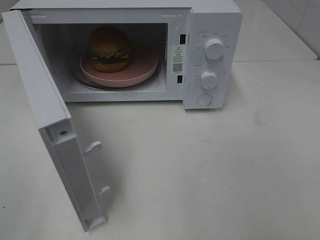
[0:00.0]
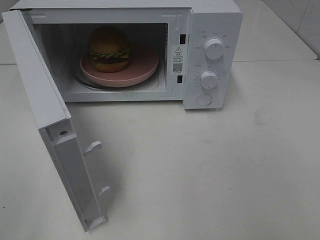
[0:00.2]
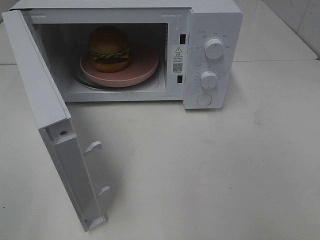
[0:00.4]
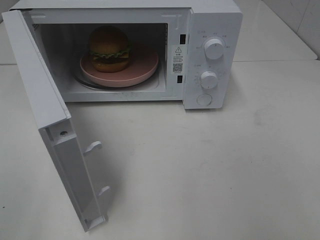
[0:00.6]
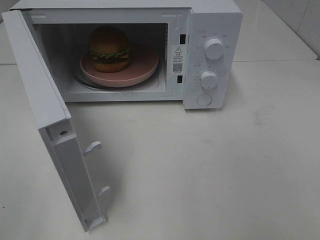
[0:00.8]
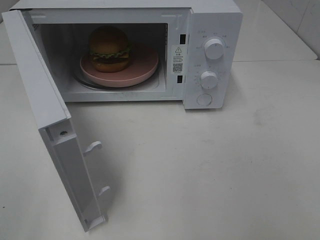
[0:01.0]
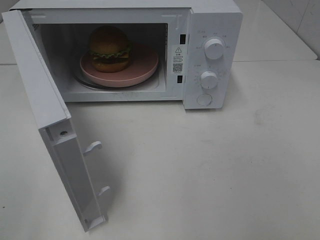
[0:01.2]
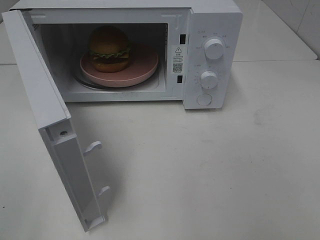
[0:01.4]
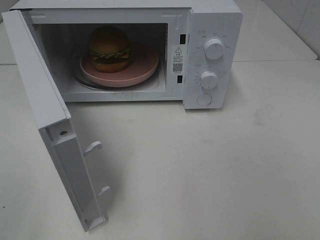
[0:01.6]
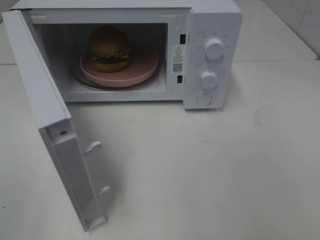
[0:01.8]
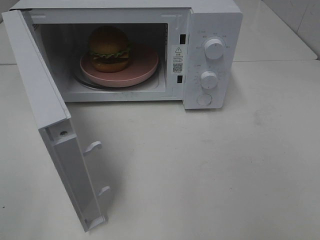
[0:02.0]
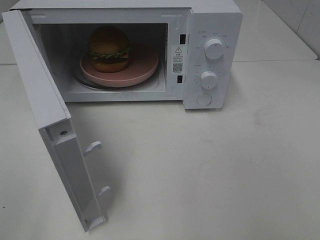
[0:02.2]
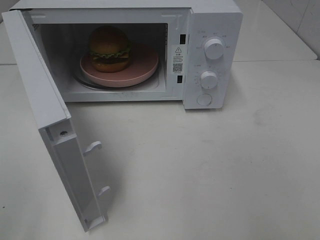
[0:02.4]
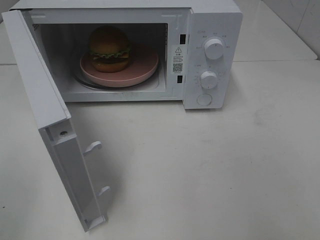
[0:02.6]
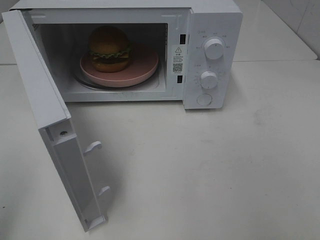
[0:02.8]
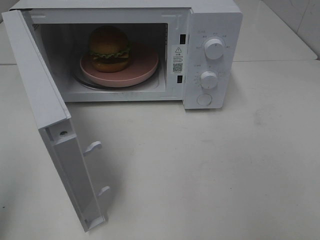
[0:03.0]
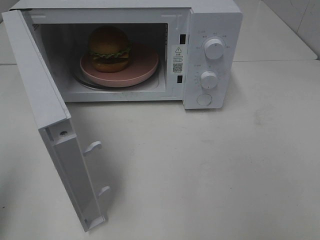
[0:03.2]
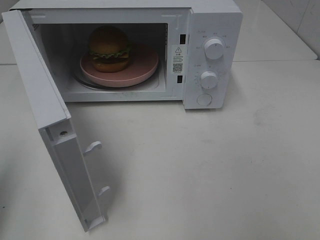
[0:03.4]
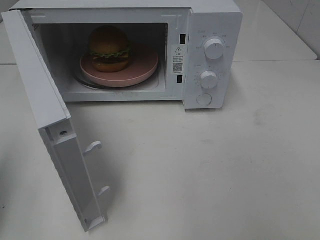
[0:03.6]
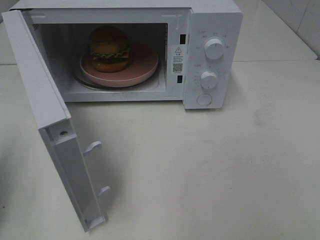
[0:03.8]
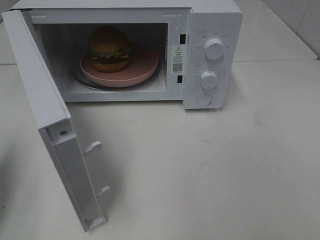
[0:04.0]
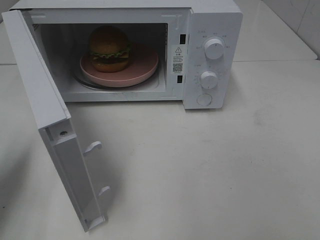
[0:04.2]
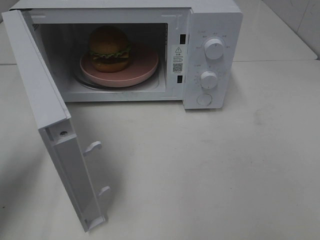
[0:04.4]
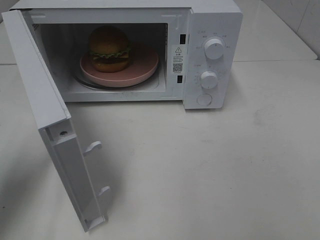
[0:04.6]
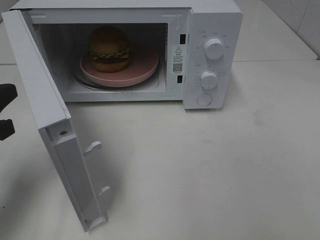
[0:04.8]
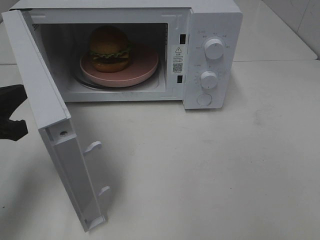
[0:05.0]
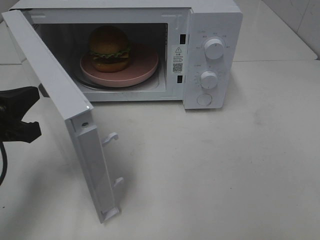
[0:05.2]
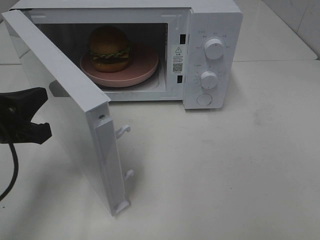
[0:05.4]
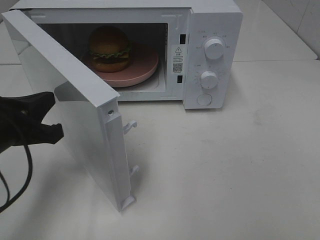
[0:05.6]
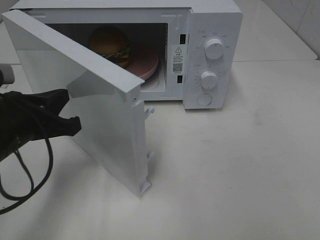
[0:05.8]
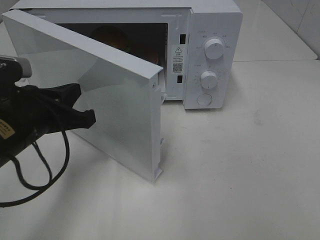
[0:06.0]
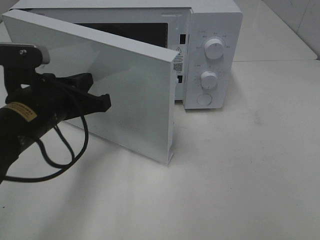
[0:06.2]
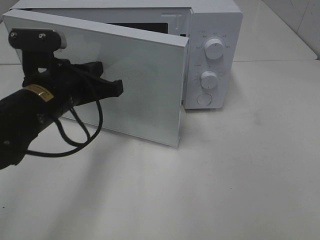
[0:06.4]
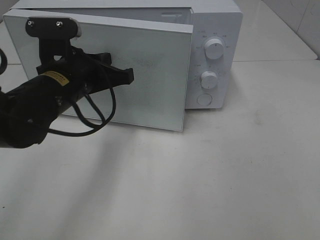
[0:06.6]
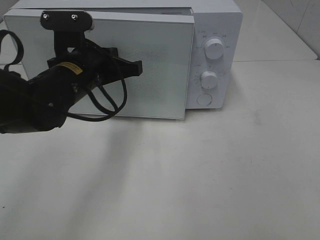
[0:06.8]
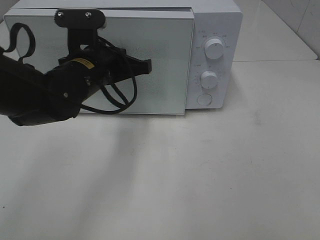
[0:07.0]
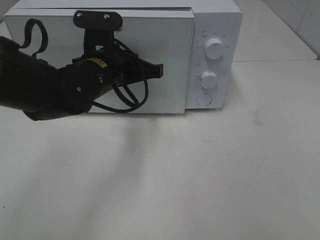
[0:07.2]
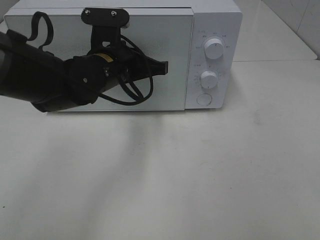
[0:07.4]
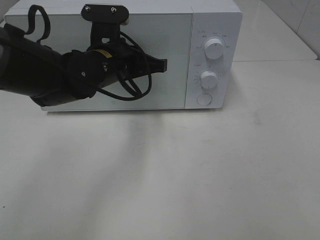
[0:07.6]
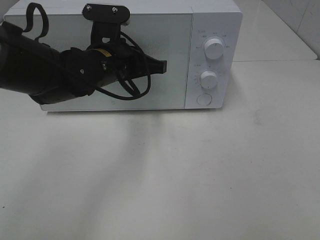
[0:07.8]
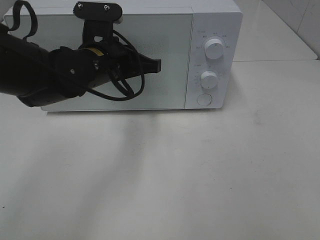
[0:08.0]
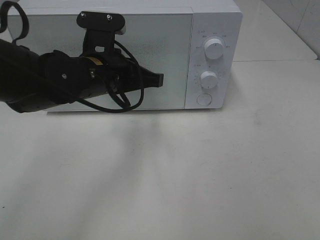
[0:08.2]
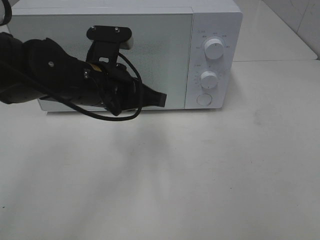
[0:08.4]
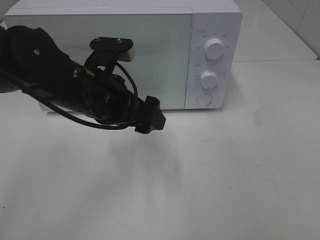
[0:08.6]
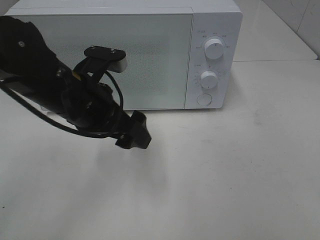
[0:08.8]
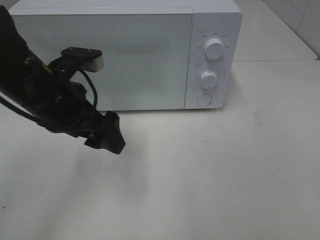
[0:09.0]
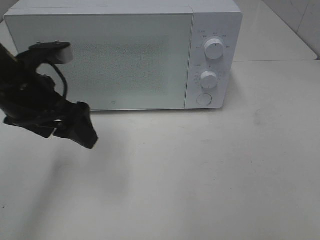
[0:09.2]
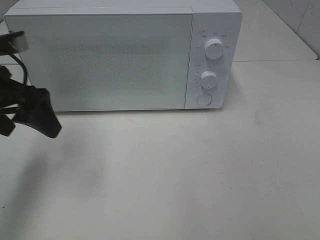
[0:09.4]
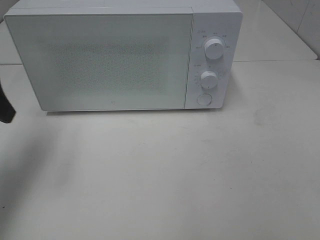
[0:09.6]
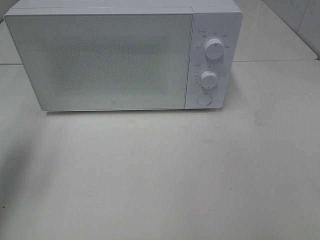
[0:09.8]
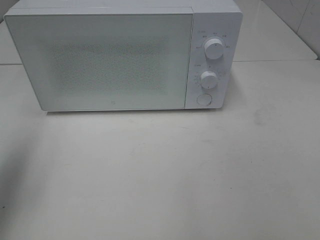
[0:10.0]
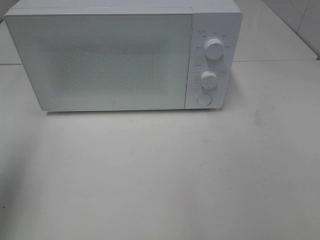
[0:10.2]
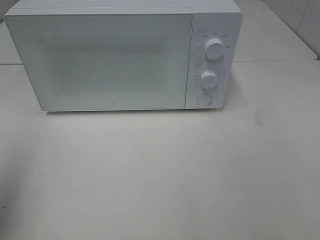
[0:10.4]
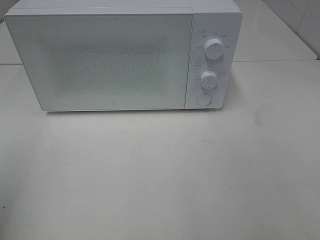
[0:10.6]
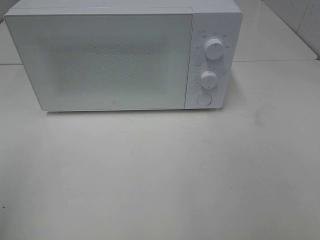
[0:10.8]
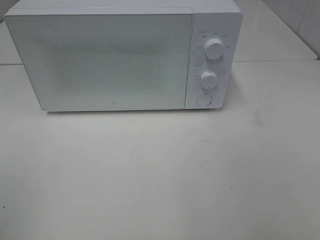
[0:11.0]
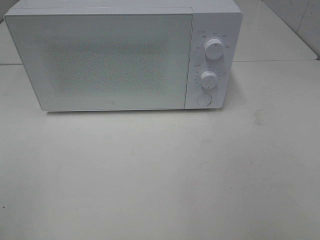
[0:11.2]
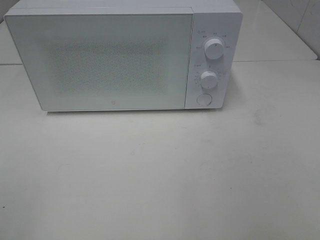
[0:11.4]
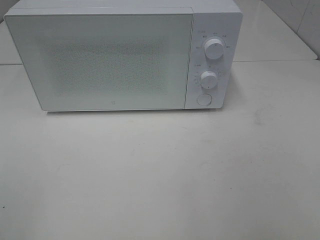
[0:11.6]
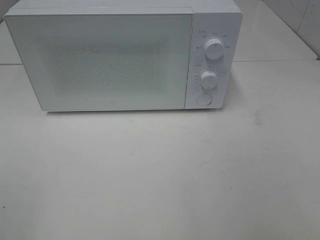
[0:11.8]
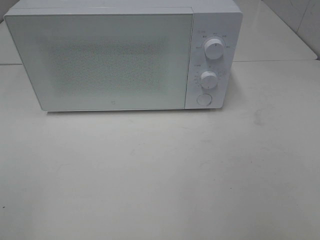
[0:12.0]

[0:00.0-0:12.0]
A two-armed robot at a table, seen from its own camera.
Task of the whole recording: Heat the burger.
Step, 0:00.0 to 0:08.4: Left hand: close the microwave door.
0:00.0 to 0:01.6: The two grippers keep their place.
0:03.0 to 0:04.4: The left gripper moves forward and downward, approximately 15 cm.
0:04.4 to 0:06.0: The left gripper moves to the right, approximately 10 cm.
0:06.0 to 0:07.6: The left gripper shifts about 15 cm forward and to the right.
0:07.6 to 0:09.0: The left gripper shifts roughly 10 cm backward and to the left, and opens.
0:09.0 to 0:10.4: The left gripper goes about 25 cm to the left, backward and upward.
0:10.4 to 0:12.0: The left gripper moves backward, approximately 15 cm.

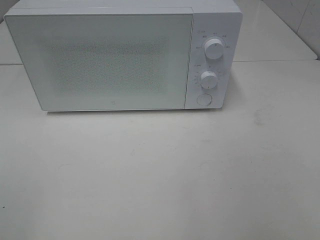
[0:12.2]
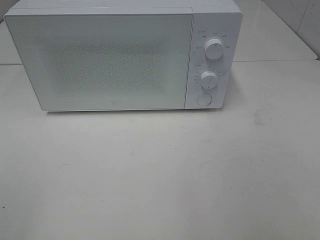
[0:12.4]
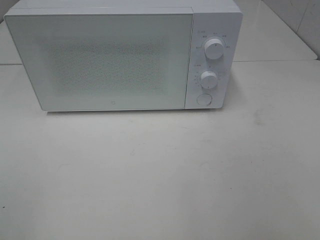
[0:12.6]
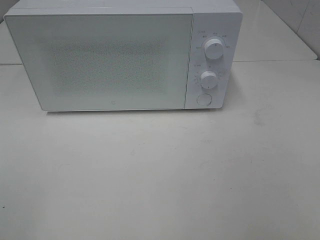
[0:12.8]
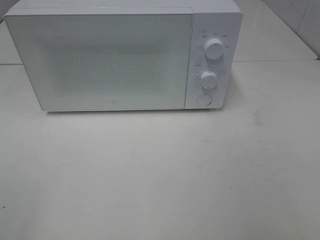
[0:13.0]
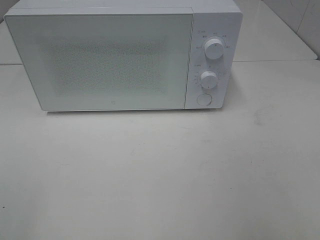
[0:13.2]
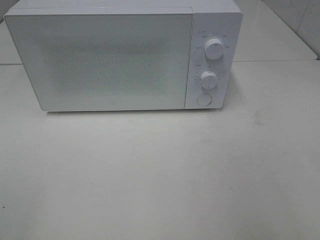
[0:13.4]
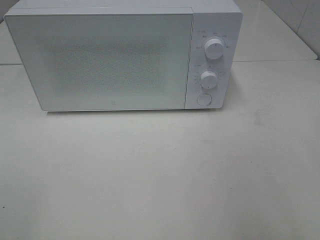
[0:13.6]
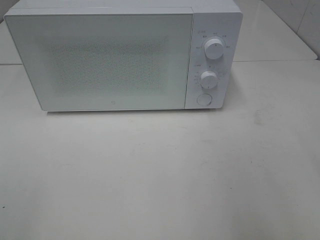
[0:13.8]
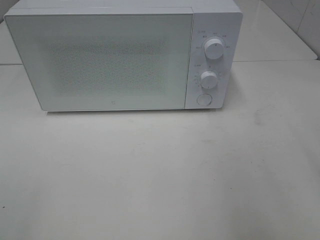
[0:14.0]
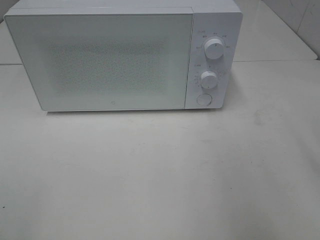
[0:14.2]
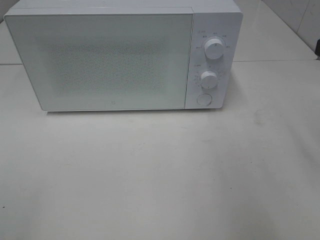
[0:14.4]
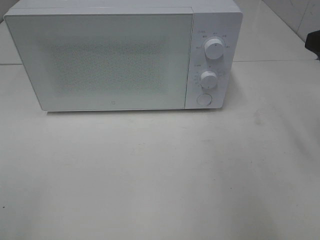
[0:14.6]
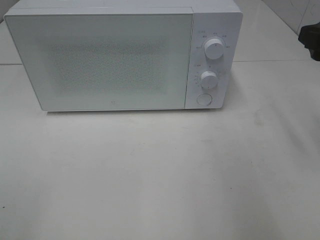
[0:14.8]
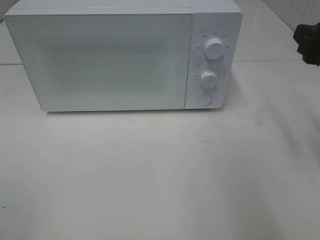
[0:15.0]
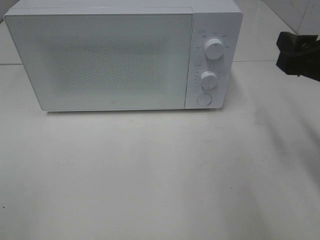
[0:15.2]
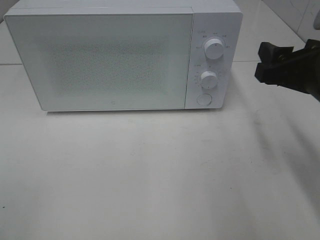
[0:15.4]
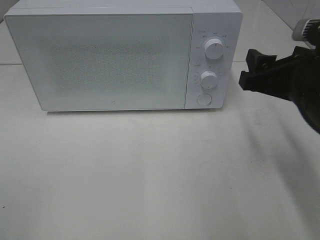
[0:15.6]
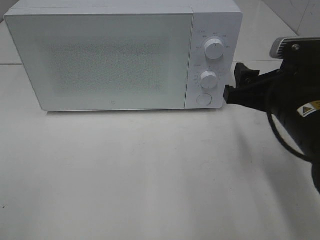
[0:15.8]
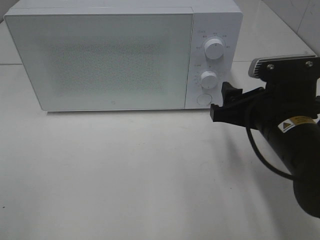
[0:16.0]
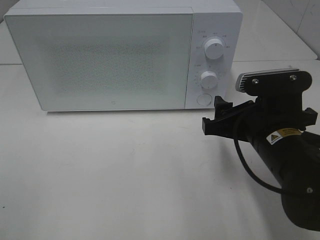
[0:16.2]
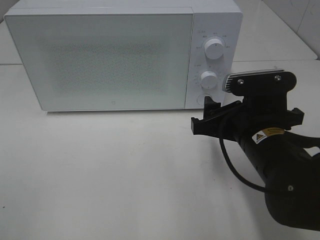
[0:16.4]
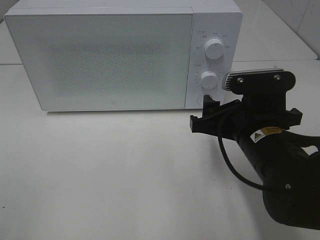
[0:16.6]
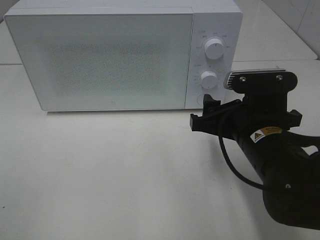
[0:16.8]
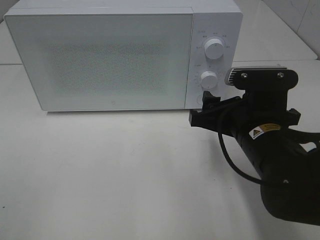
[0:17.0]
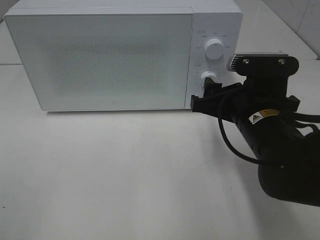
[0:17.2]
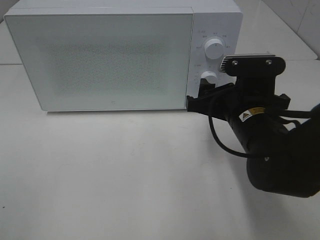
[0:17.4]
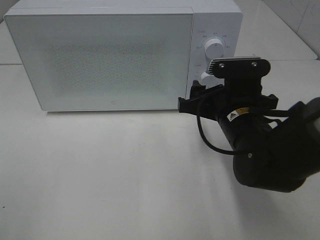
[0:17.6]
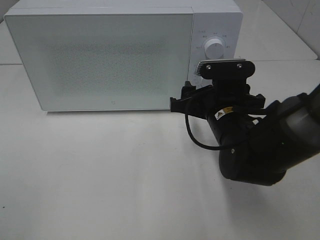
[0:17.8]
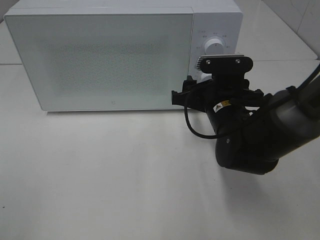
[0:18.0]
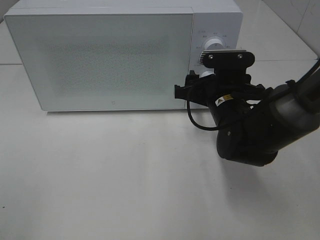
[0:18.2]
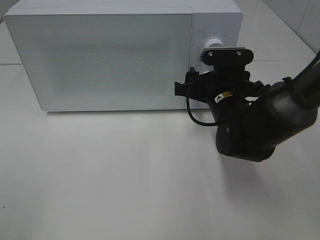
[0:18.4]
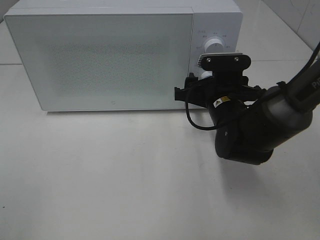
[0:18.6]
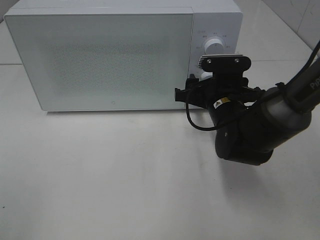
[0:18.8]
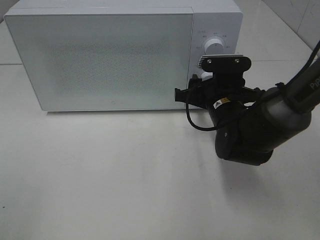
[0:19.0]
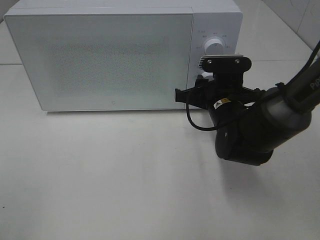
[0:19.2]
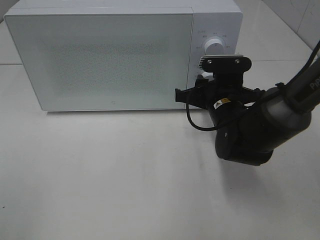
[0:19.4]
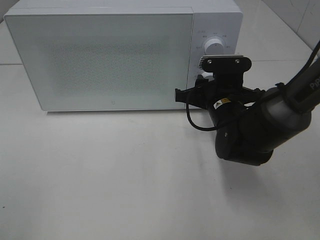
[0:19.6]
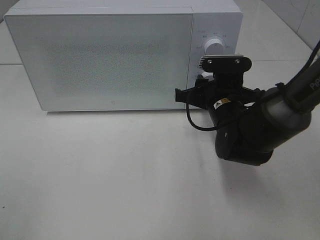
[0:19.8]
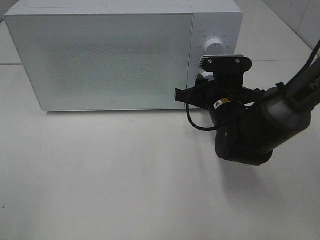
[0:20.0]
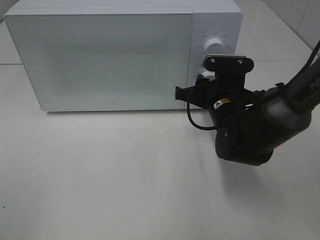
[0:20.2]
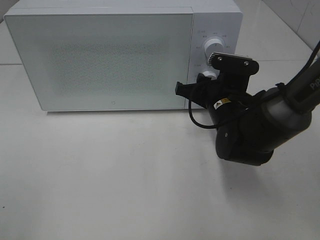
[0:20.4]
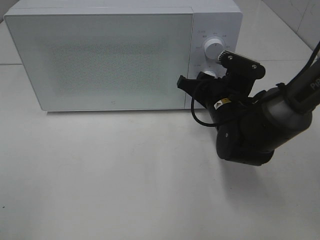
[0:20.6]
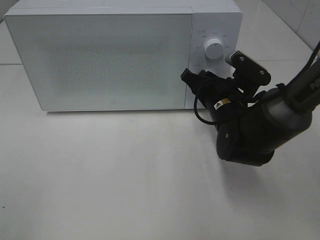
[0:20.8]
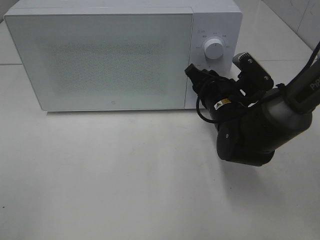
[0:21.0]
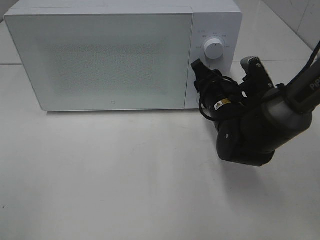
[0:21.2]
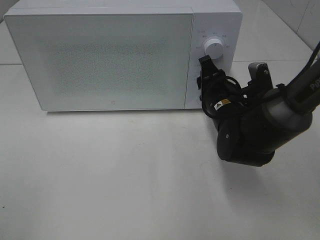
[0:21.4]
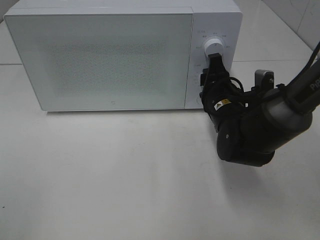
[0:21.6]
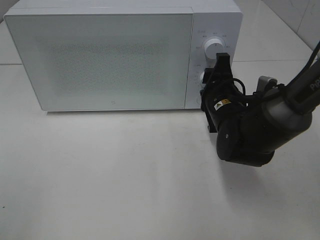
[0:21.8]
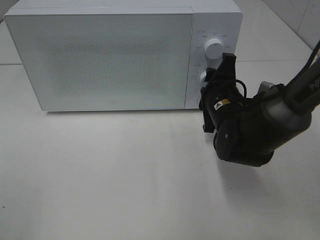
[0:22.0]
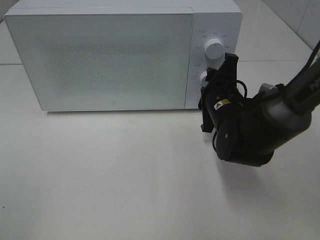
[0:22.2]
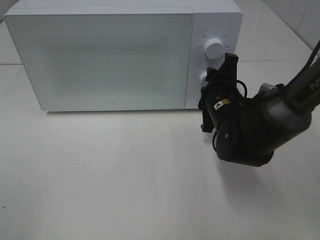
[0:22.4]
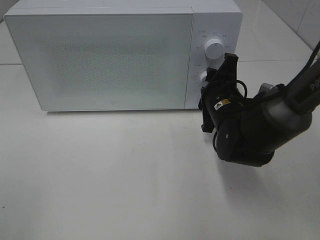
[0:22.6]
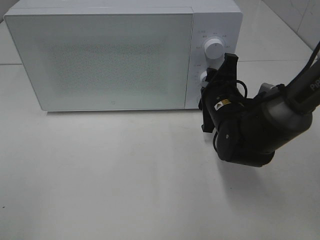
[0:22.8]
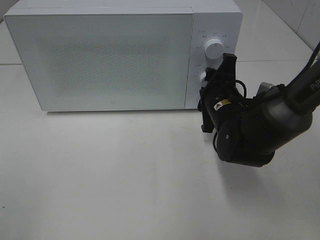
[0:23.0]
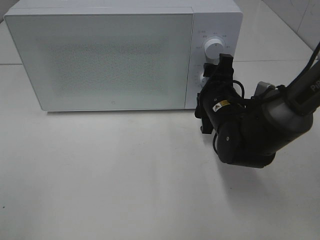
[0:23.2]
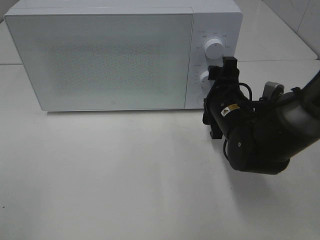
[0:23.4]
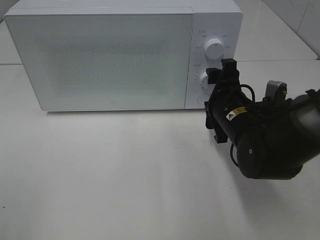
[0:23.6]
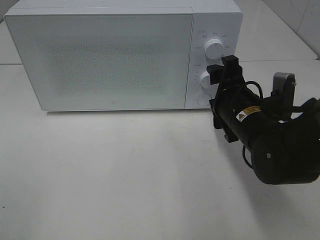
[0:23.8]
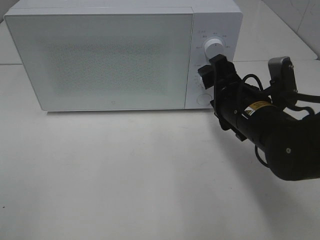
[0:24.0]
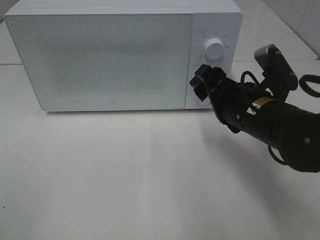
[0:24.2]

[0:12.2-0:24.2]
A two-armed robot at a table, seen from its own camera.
Task of the whole recording: Heat the burger.
Step, 0:12.2 to 0:23.2: Right hand: twist timer button.
0:13.8 to 0:15.2: The right gripper travels forward and downward by approximately 10 cm.
0:15.2 to 0:16.6: The right gripper is displaced to the left and downward by roughly 15 cm.
0:16.6 to 0:18.2: The right gripper heads forward, covering roughly 10 cm.
0:18.2 to 0:19.8: The right gripper closes.
0:22.6 to 0:24.2: The right gripper is displaced backward and upward by roughly 10 cm.
